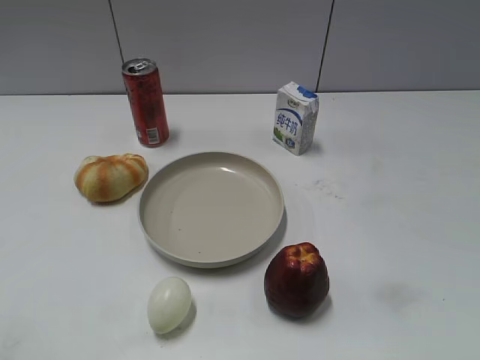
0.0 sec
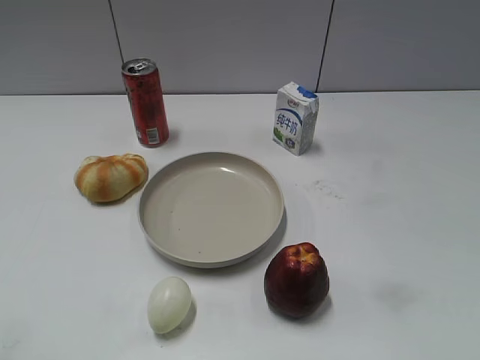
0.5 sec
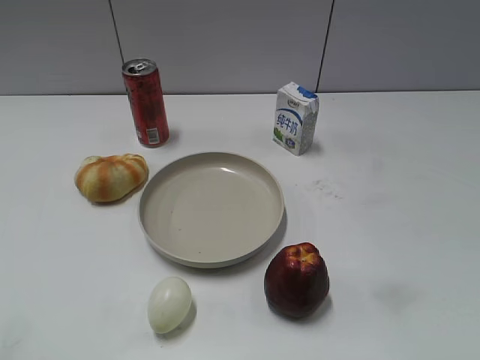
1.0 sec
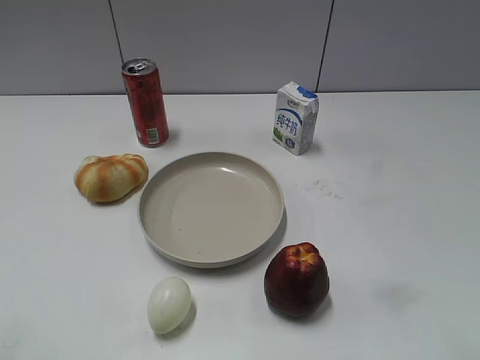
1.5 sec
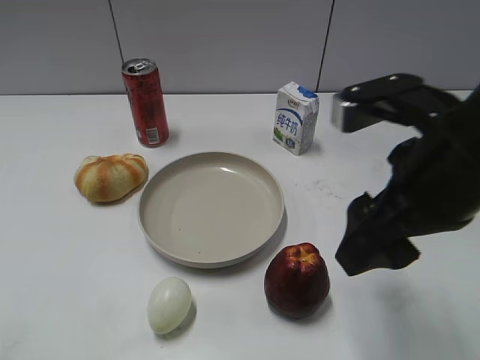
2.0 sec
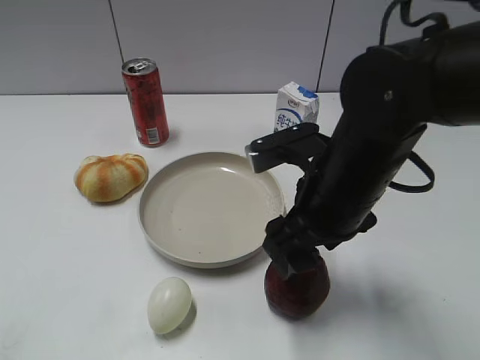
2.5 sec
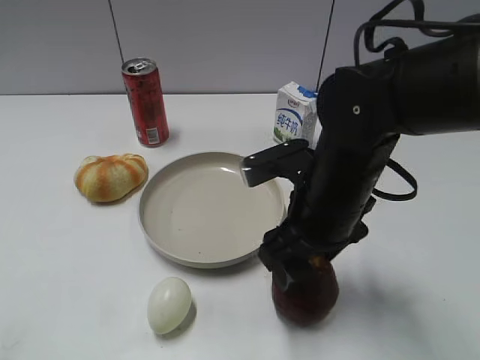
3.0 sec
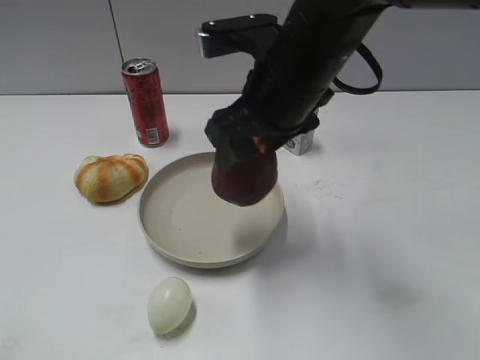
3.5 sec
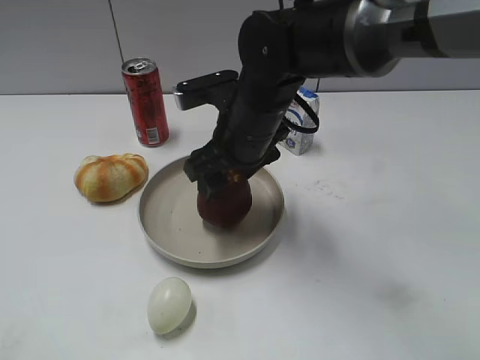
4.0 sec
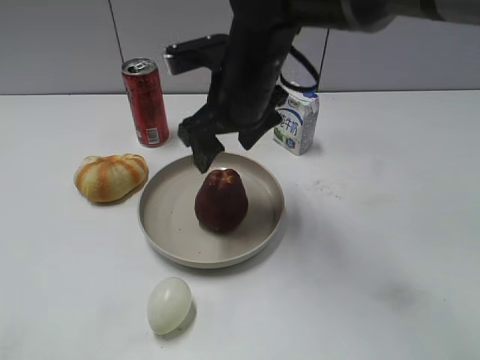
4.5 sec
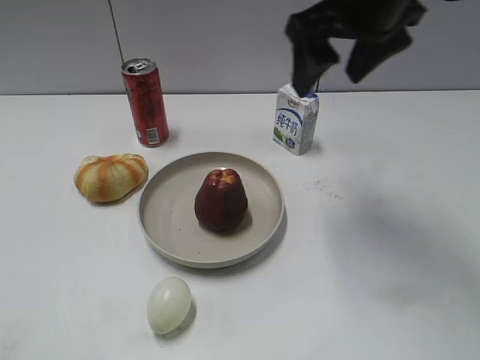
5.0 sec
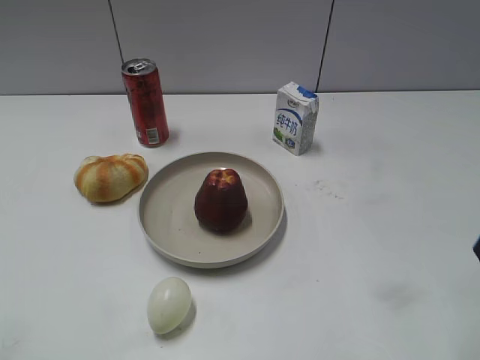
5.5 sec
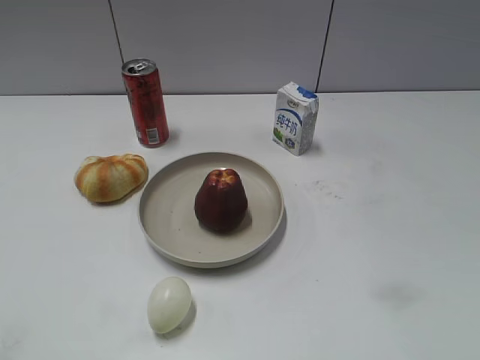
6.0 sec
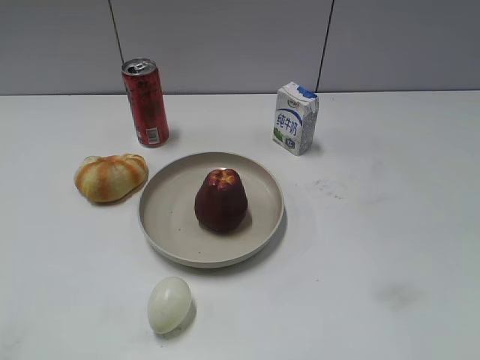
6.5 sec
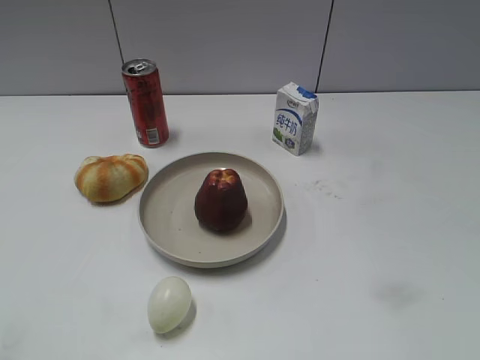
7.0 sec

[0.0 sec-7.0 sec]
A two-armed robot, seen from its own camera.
Step, 1.0 sec to 2.5 sec: Grasp the apple with right gripper.
Step, 3.0 sec to 4.5 sec: Place the apple on the plate with right gripper.
2.0 sec to 3.5 sec: The right gripper shifts some 15 cm to the left and forward, and closes.
3.5 sec to 5.0 sec: The right gripper is displaced to the right and upward by approximately 10 cm, and opens its fingers.
5.0 sec to 7.0 sec: The right gripper shifts some 35 cm backward and to the right, and closes up.
